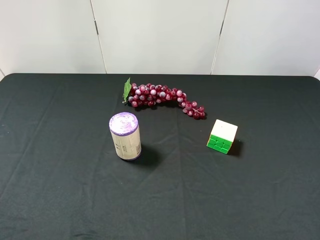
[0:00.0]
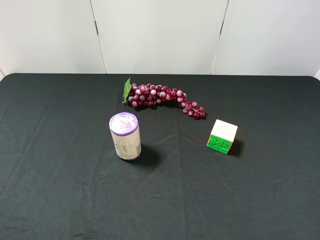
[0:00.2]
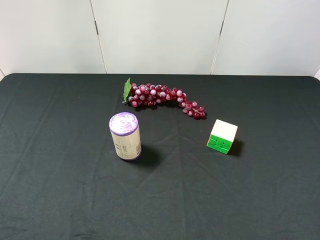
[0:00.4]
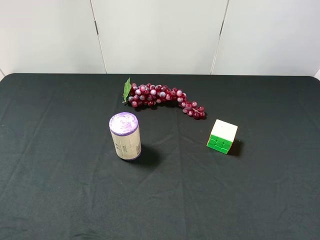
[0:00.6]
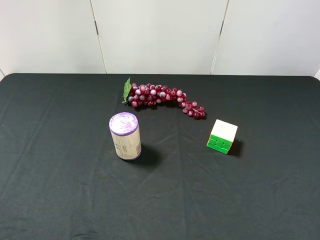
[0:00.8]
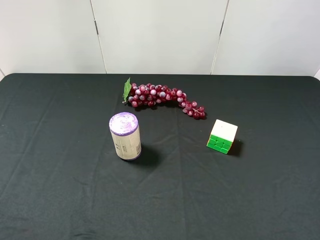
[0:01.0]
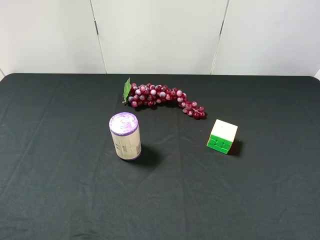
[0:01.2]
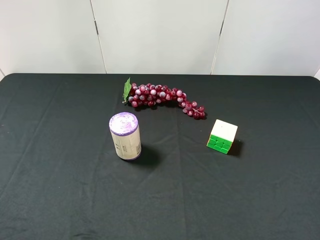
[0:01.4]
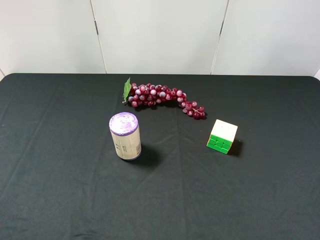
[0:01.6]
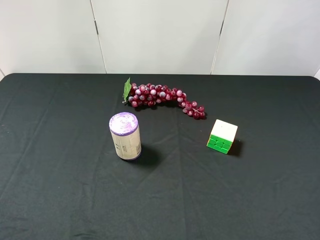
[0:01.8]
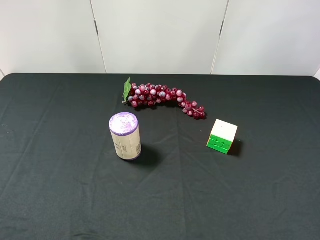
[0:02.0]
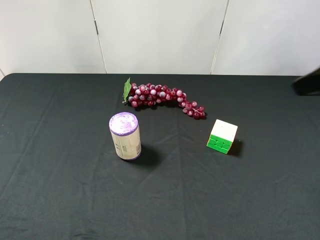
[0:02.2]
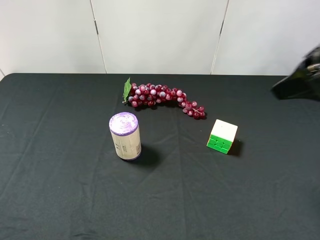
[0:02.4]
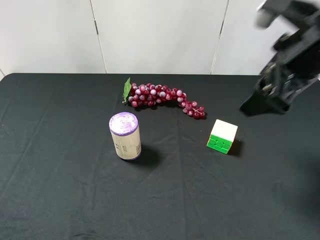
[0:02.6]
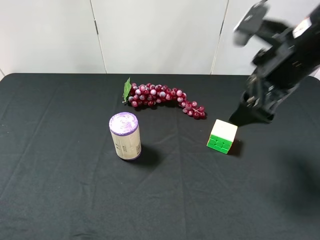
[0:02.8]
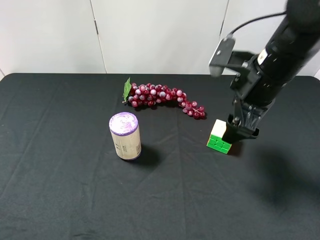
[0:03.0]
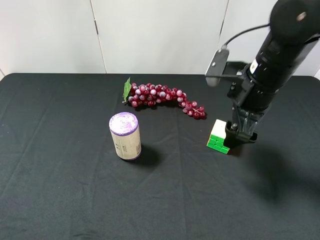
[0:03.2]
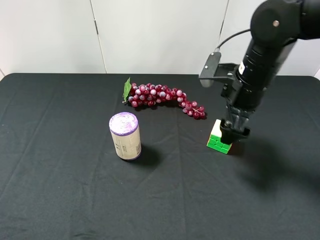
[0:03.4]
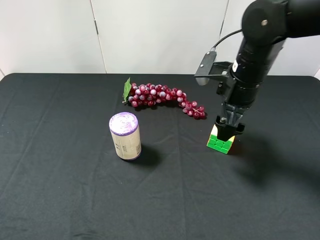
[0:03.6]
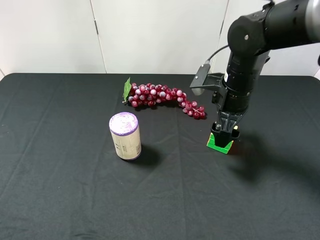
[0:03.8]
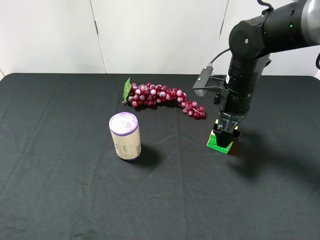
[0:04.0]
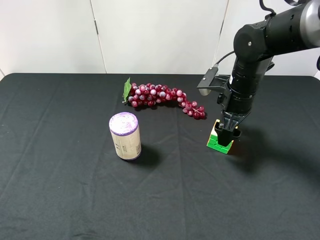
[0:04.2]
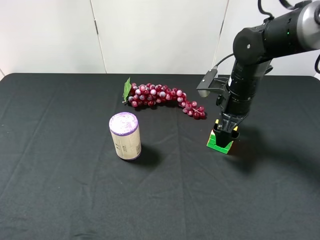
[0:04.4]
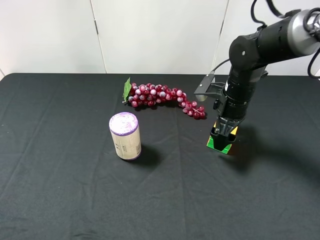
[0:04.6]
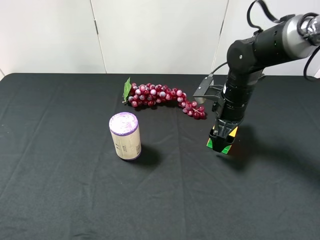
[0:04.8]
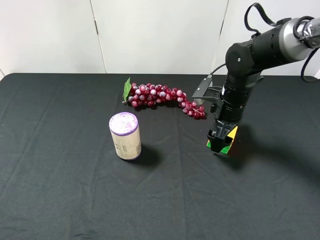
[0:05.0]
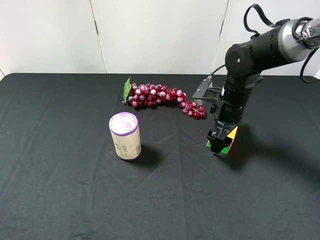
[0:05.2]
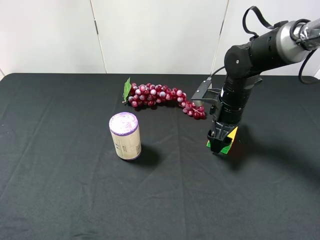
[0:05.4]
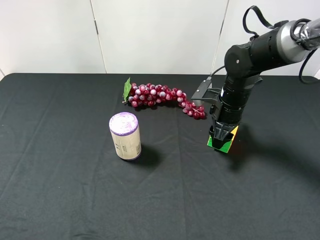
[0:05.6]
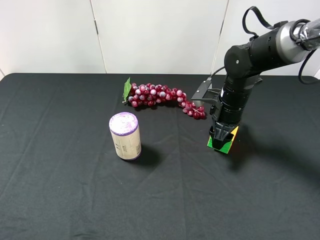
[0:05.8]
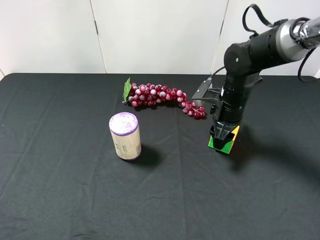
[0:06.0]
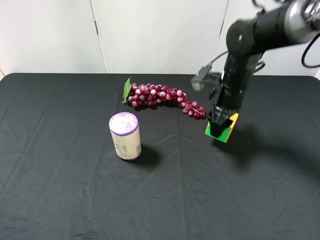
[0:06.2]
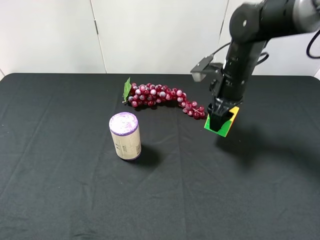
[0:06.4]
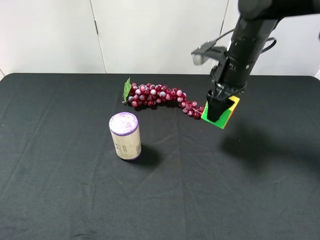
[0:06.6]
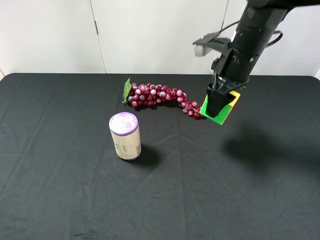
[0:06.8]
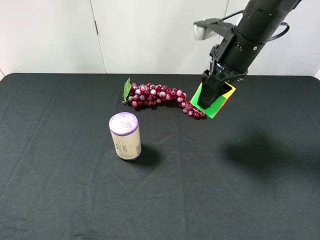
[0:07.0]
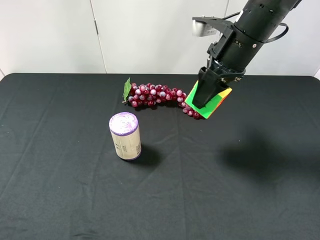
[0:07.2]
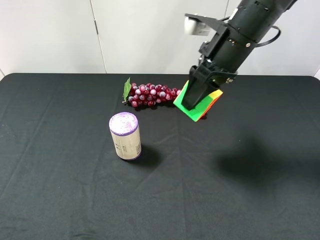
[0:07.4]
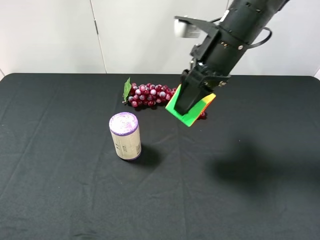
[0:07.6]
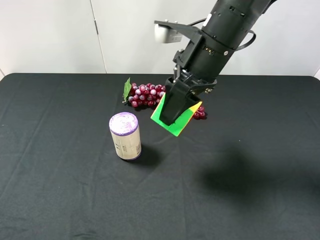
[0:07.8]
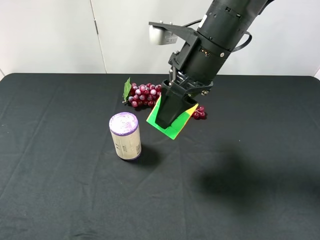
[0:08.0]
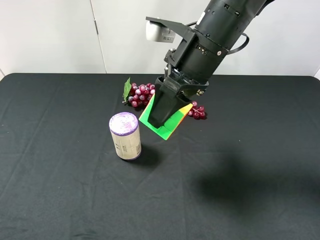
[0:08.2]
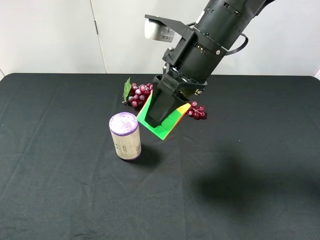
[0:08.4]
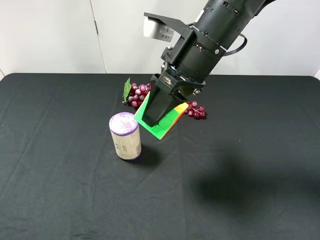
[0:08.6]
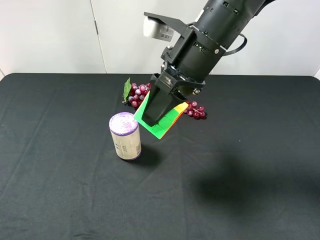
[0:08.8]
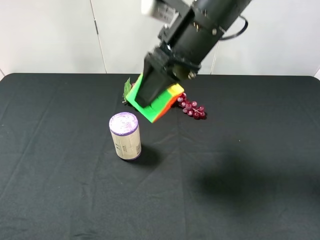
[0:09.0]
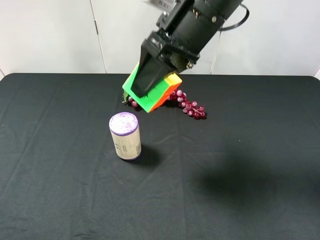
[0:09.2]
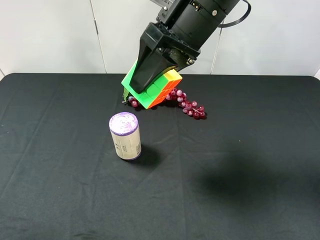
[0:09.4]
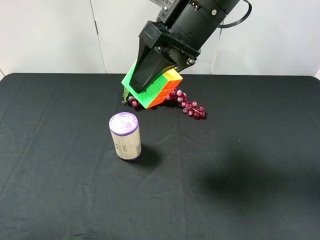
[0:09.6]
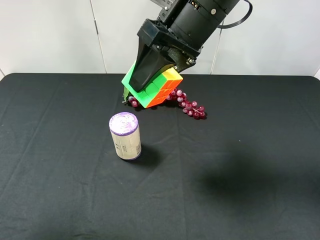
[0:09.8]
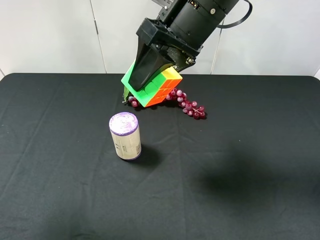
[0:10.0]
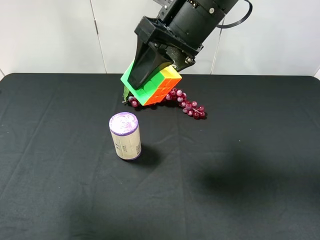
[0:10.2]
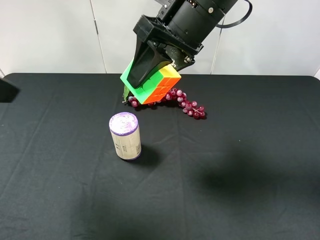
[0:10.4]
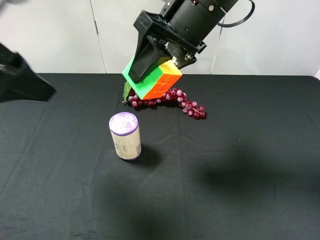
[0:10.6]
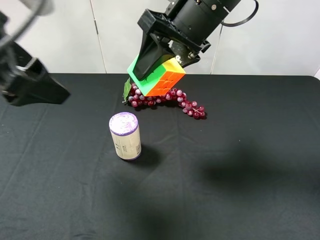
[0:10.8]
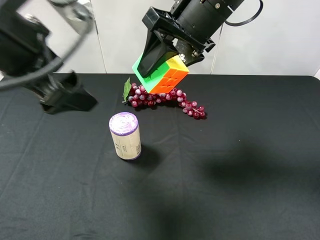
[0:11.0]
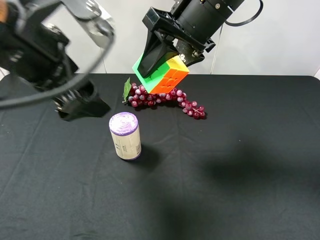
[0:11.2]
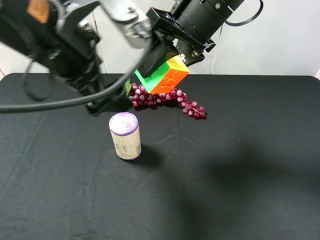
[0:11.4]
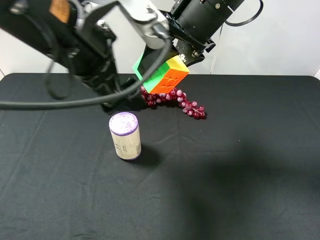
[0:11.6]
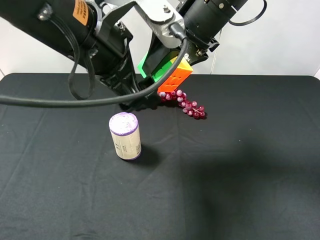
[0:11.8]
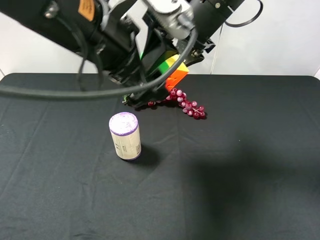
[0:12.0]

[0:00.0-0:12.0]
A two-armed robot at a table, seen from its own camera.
Task of the whole recording: use the right gripper to pick up the item and transfer it from the right gripper to the left gripper.
Step, 0:00.0 to 0:05.8: Use the right gripper to grab the Rubik's Cube on the right side of the table.
0:01.6 to 0:03.0: The right gripper shifts roughly 25 cm forward, to the left and downward.
0:03.0 to 0:04.4: The right gripper shifts approximately 10 cm downward and forward.
0:04.4 to 0:06.0: The right gripper closes.
0:06.0 to 0:07.6: The right gripper heads upward and to the left, covering roughly 15 cm.
0:07.6 to 0:09.0: The right gripper shifts by roughly 5 cm.
0:09.0 to 0:10.4: The left gripper shifts some 15 cm forward, to the right and upward.
0:10.4 to 0:12.0: The left gripper is displaced to the right by roughly 20 cm.

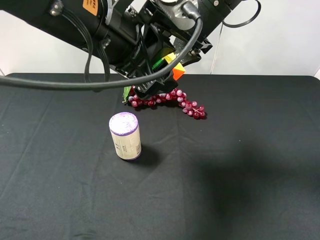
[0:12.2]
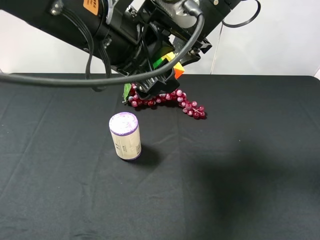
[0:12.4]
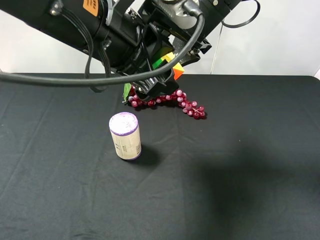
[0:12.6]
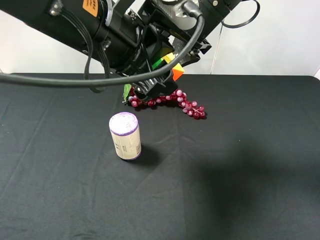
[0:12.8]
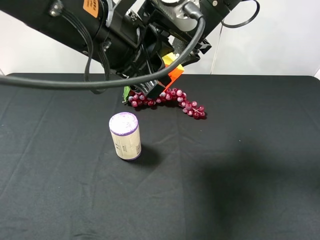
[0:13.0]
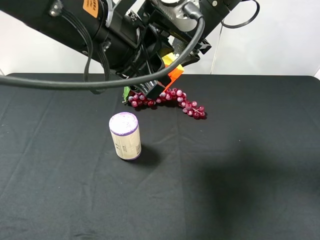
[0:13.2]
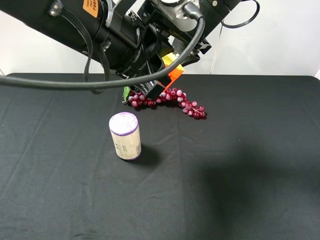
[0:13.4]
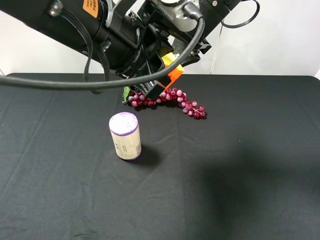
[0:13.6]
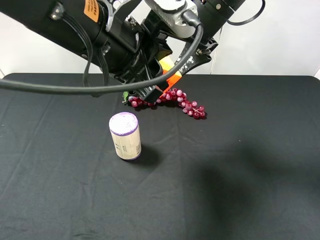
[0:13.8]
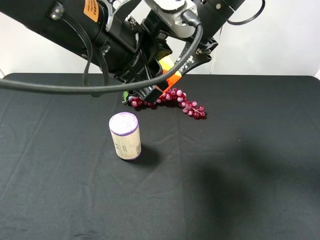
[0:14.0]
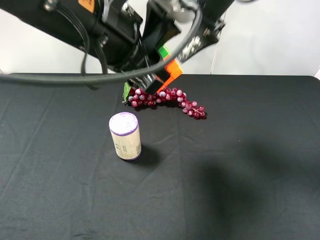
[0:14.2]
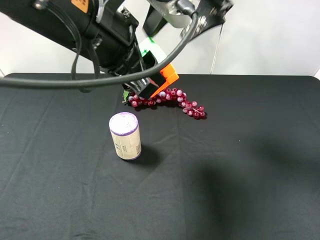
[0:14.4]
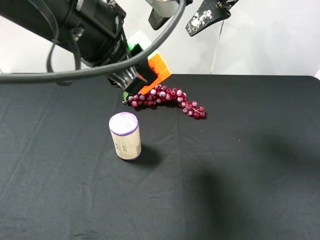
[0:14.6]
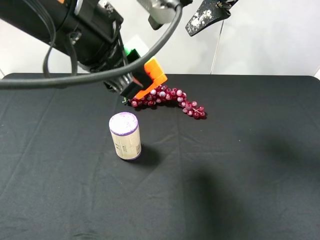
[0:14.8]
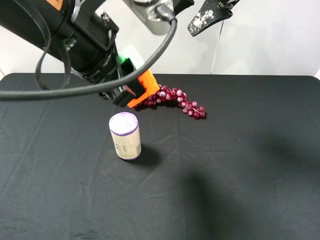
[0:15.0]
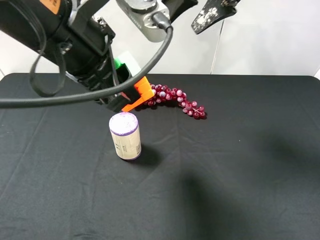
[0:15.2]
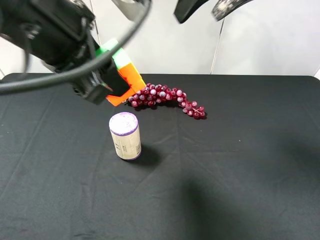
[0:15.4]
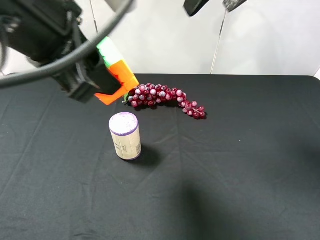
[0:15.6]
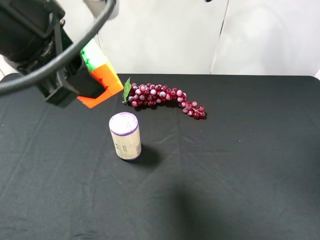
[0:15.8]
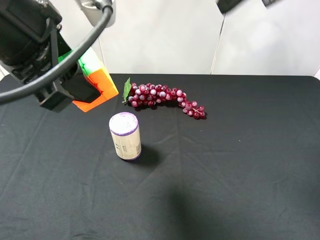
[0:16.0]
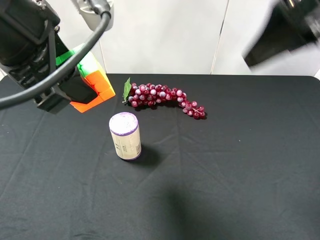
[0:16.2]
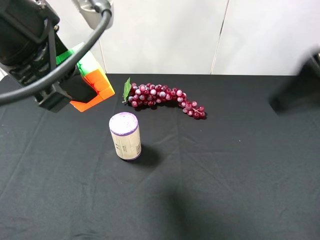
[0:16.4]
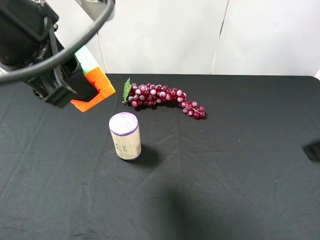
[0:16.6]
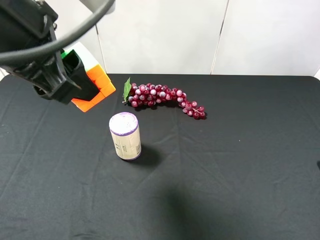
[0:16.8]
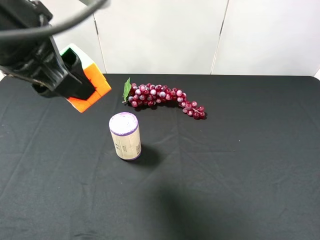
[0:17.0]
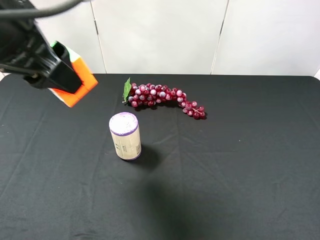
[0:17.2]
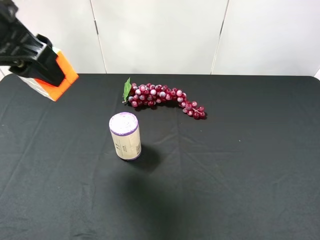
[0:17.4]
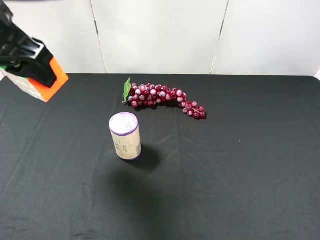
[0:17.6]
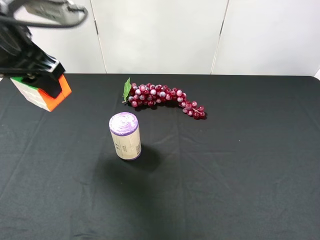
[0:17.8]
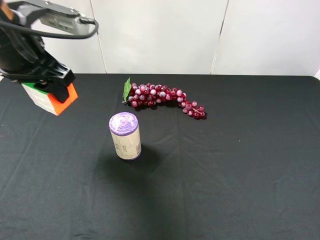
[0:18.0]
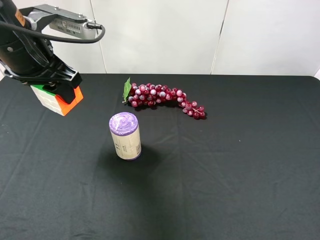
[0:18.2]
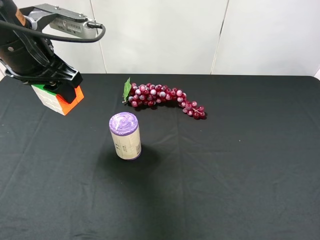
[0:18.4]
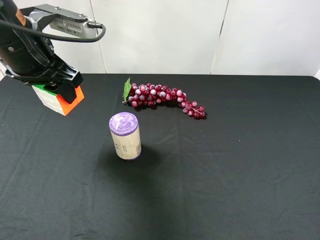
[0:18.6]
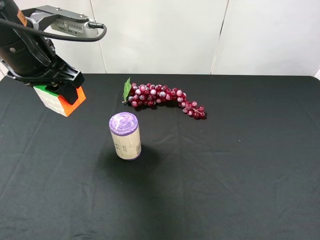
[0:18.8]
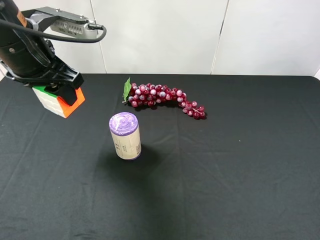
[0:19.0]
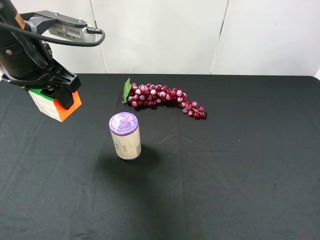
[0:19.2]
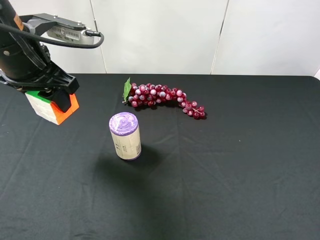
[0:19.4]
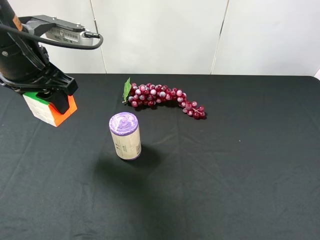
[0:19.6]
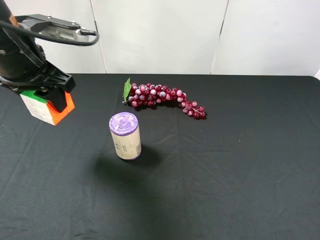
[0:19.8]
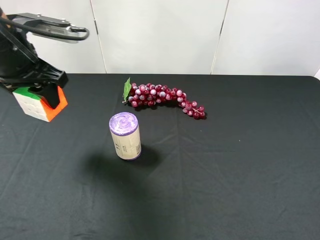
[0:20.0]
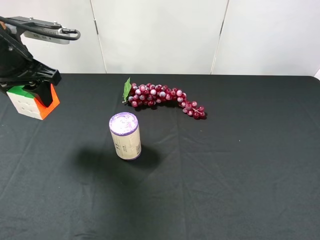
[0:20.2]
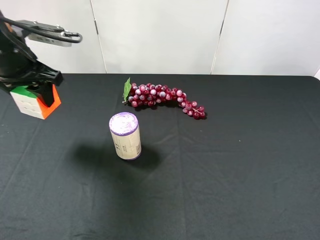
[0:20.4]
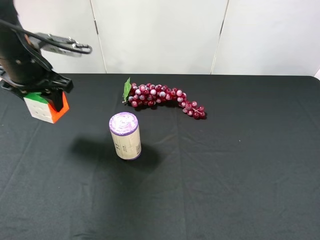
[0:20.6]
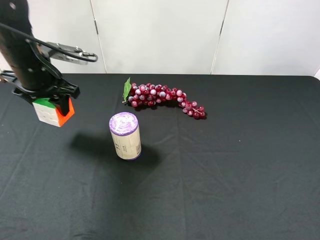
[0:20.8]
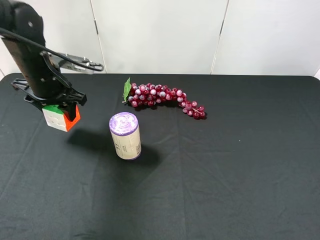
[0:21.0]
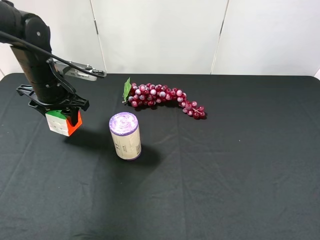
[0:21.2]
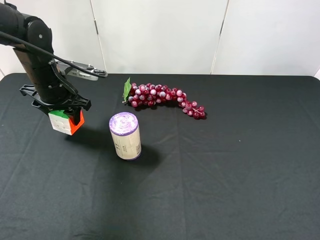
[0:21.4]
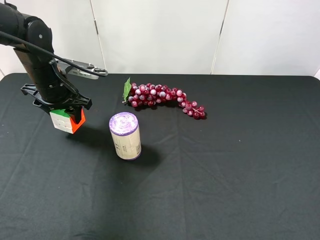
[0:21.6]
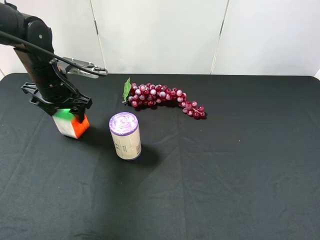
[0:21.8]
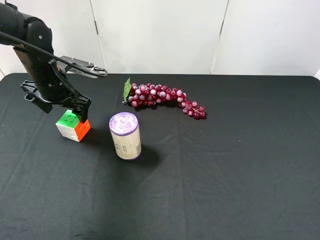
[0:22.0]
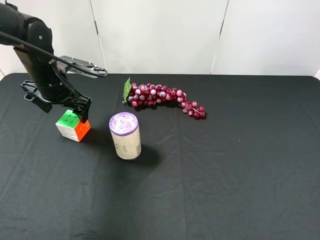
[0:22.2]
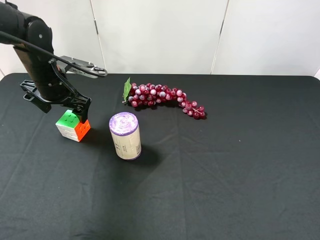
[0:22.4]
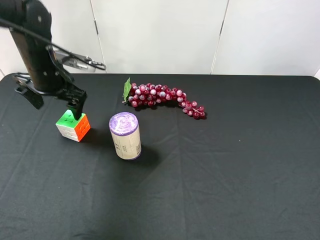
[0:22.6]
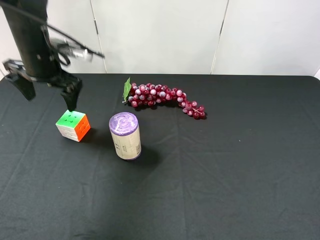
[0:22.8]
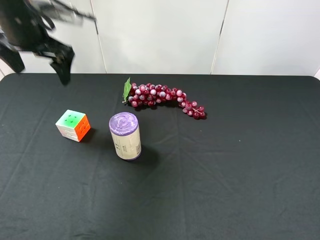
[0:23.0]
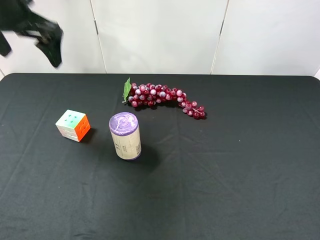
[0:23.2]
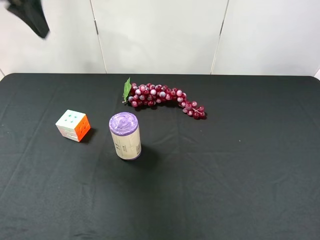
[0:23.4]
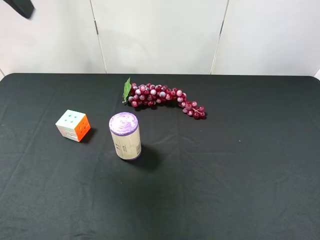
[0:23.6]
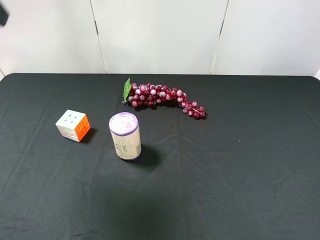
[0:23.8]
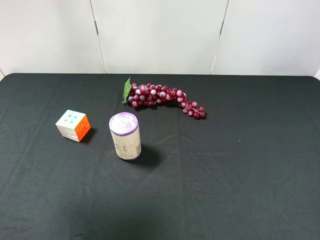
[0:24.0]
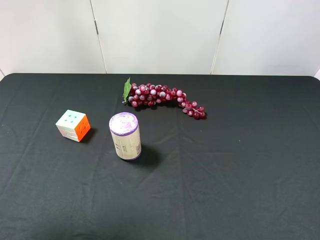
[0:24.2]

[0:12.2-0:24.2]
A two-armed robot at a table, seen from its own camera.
Task of the whole recording: use the right gripper to pick up the item and transfer it from the right gripper to the left gripper.
Step, 0:12.2 to 0:14.4: Pass the Rubik's Cube to the left gripper.
Step, 0:14.6 to 0:22.0: The left gripper places milk on the left side of the table.
0:12.2 to 0:13.8: The right gripper opens its fingers; the left gripper closes.
0:13.8 to 0:15.2: The right gripper moves upward, about 5 cm.
0:15.2 to 0:16.6: The right gripper is displaced backward and to the right by roughly 25 cm; the left gripper shifts by approximately 5 cm.
0:16.6 to 0:18.2: The right gripper moves backward, roughly 5 cm. The left gripper shifts roughly 10 cm forward and downward.
0:18.2 to 0:19.8: The grippers move only a little.
0:19.8 to 0:21.2: The left gripper goes approximately 15 cm downward and forward.
0:21.2 to 0:22.6: The left gripper opens up.
0:22.6 to 0:24.2: The left gripper shifts approximately 30 cm backward and upward.
